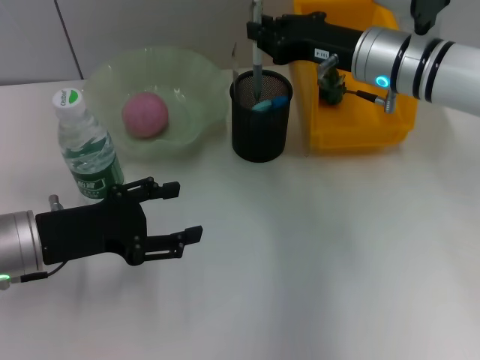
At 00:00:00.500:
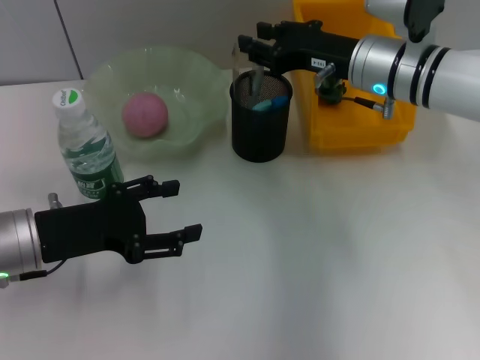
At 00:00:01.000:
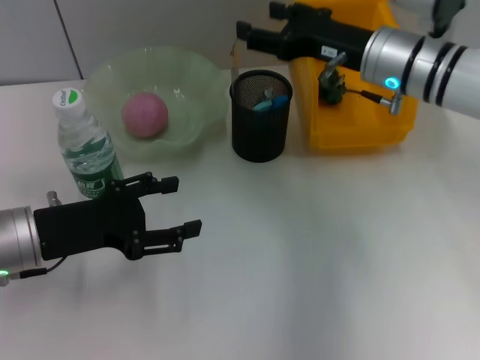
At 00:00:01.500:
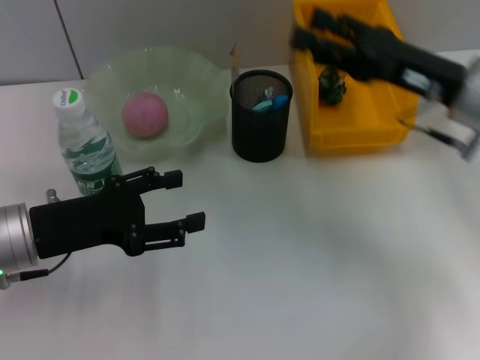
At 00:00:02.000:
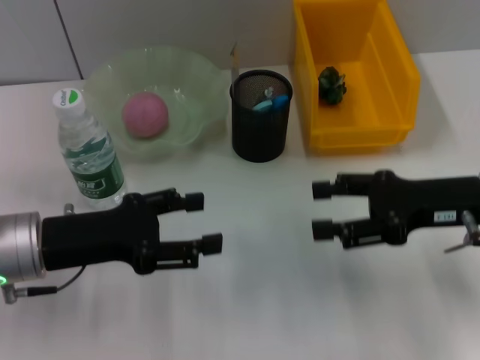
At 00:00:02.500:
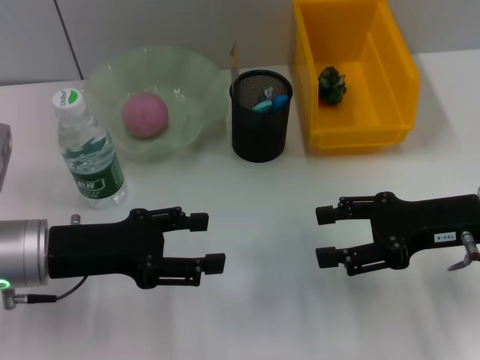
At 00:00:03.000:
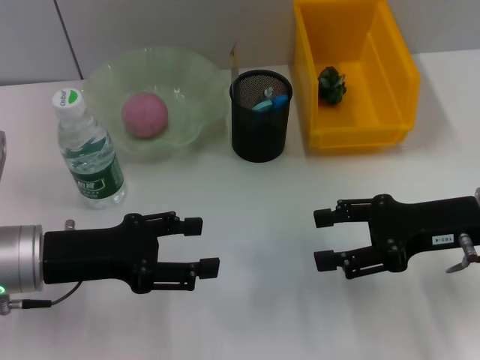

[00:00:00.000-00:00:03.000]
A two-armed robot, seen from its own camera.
00:00:00.000 to 00:00:01.500: The right gripper heads backward and to the right, covering some 10 cm, and opens.
00:00:01.500 to 00:00:03.000: The right gripper travels backward by approximately 5 cm.
